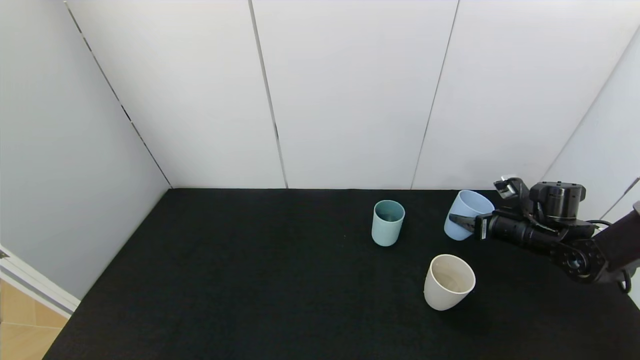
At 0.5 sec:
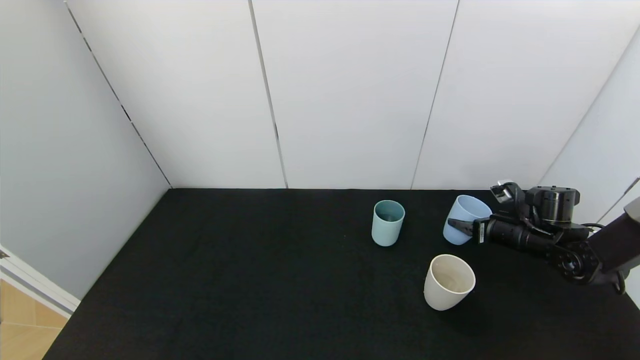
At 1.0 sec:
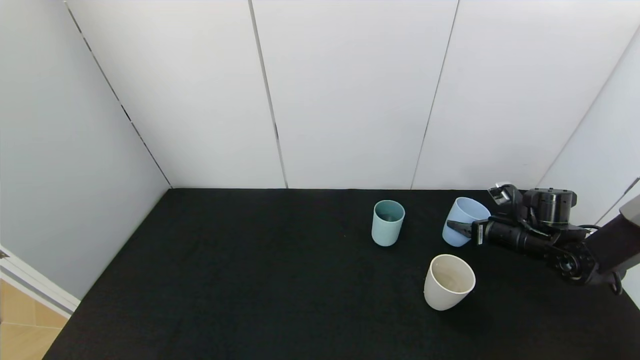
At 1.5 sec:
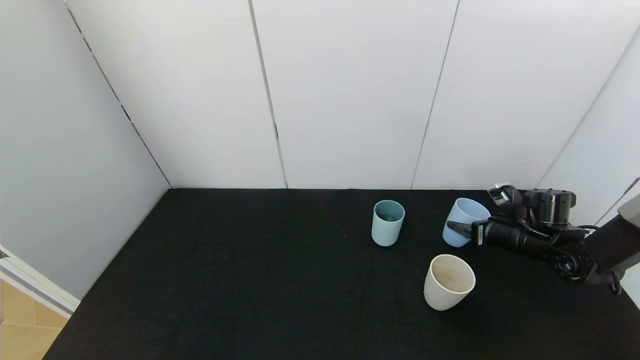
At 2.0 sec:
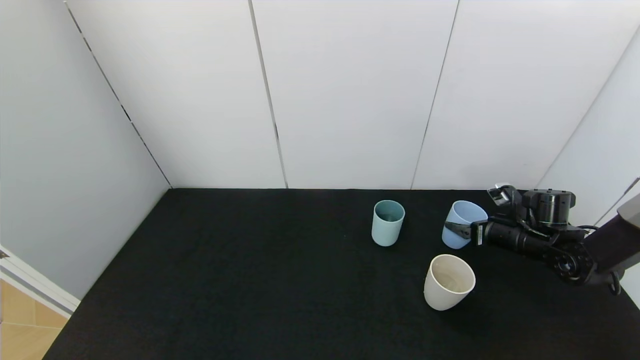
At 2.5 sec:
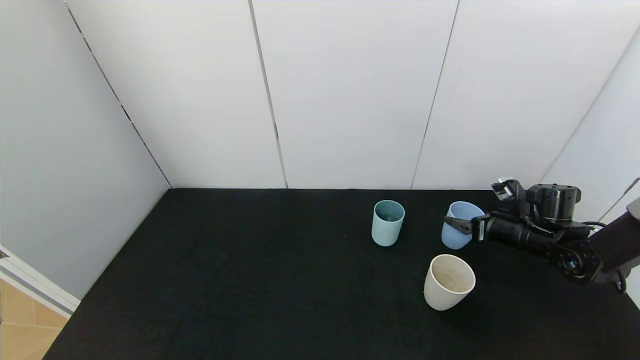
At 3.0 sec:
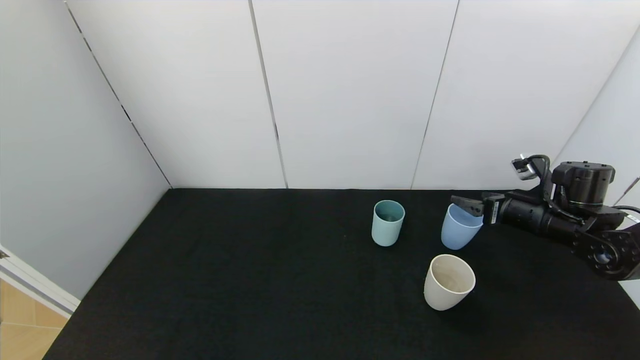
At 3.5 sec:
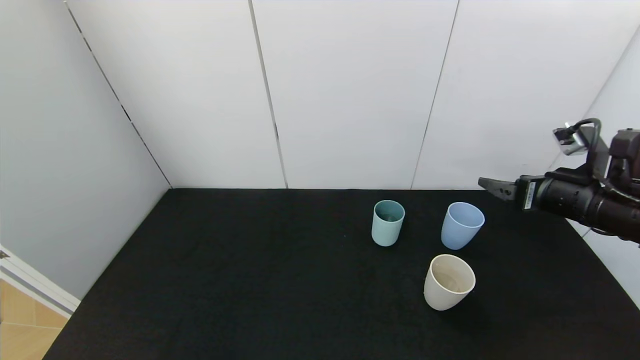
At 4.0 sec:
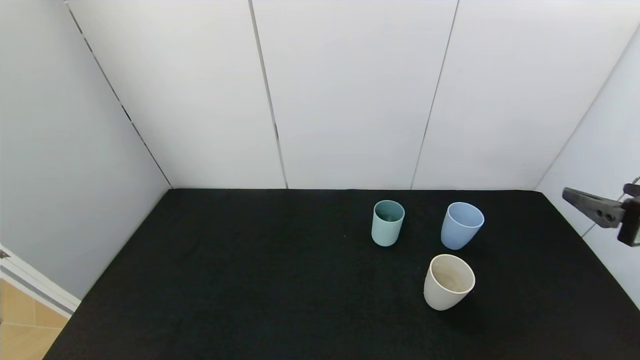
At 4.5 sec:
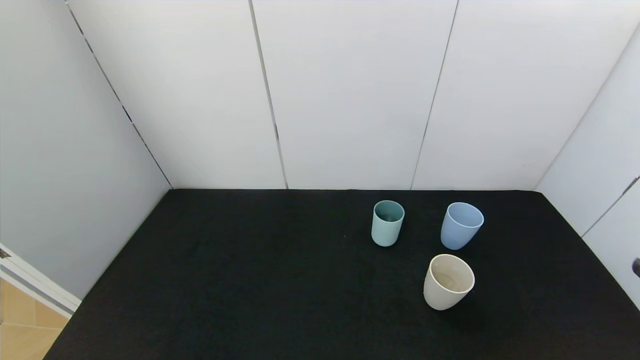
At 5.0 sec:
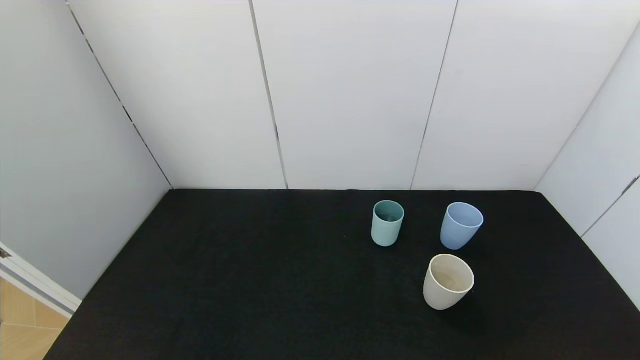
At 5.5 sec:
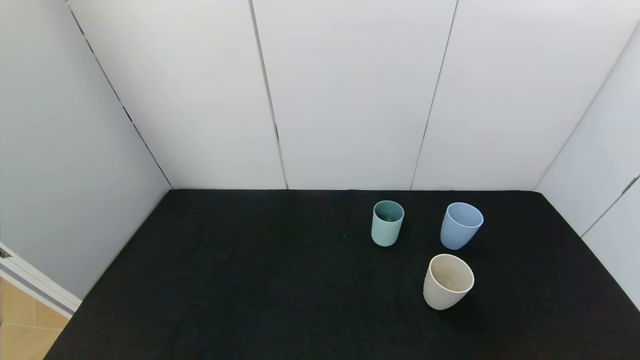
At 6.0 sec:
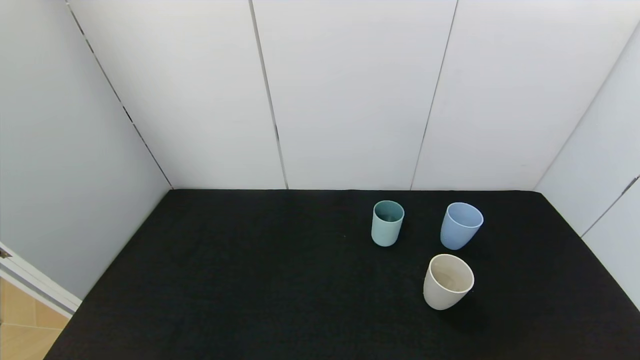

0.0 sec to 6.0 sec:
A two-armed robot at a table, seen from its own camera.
Task of the whole recording: use the gripper to pour the water into the other two cups on black table.
Step, 0.0 sec to 3.0 sec: Place the blue cup with the right gripper.
0.0 sec to 2.0 sec: The right gripper opens up.
2.0 sec to 4.0 sec: The right gripper is displaced backward and upward by some 30 cm.
4.0 sec to 6.0 sec: The right gripper moves backward and downward, some 25 cm.
